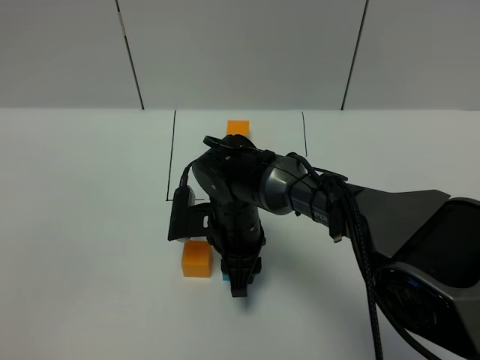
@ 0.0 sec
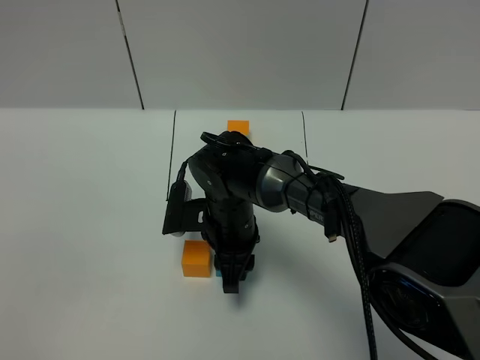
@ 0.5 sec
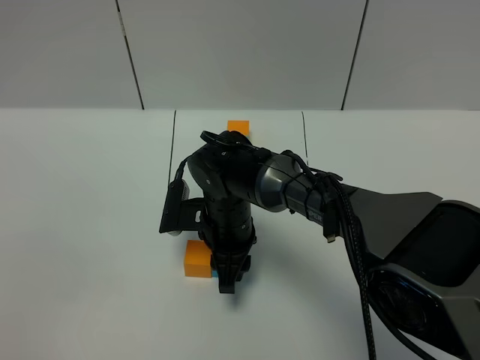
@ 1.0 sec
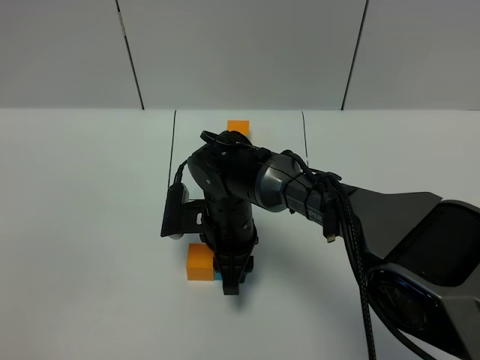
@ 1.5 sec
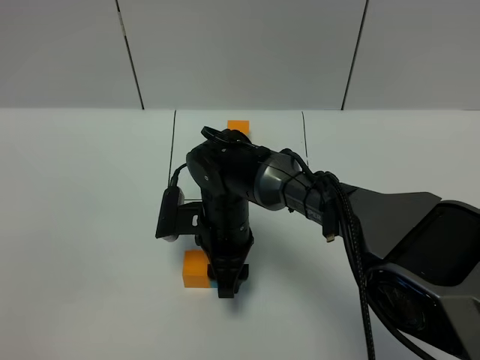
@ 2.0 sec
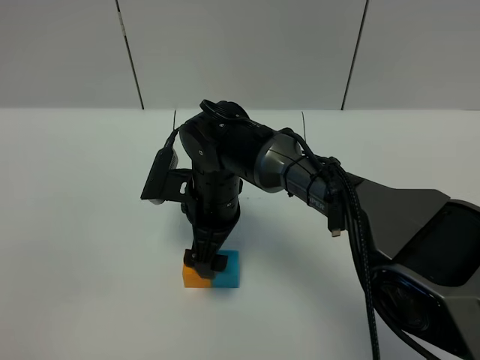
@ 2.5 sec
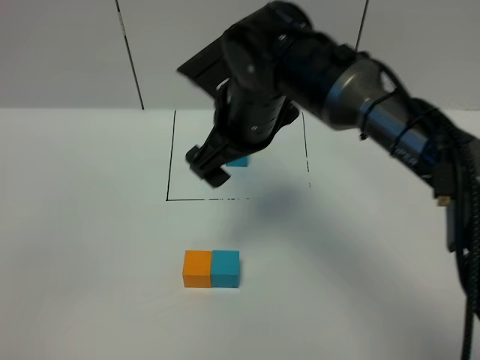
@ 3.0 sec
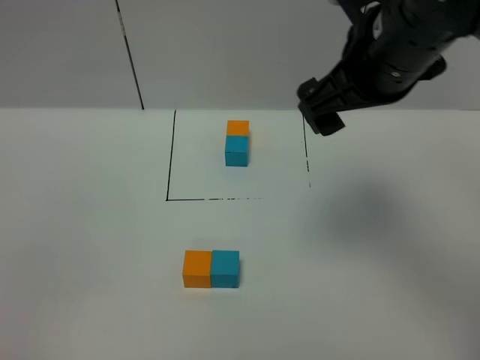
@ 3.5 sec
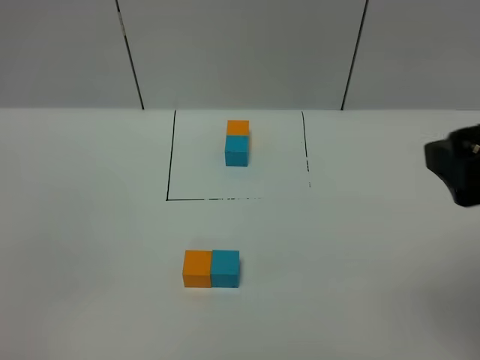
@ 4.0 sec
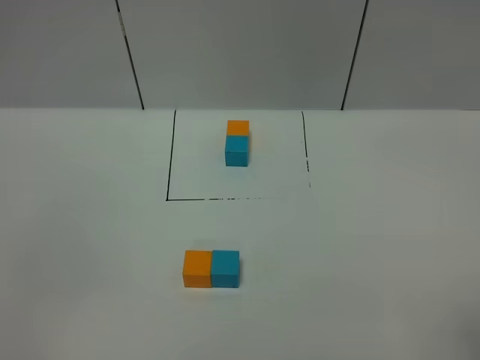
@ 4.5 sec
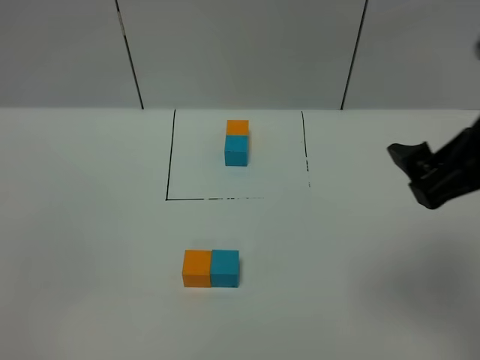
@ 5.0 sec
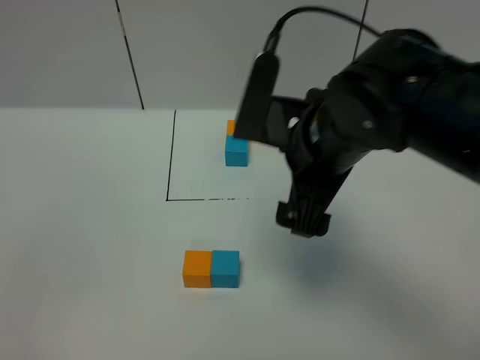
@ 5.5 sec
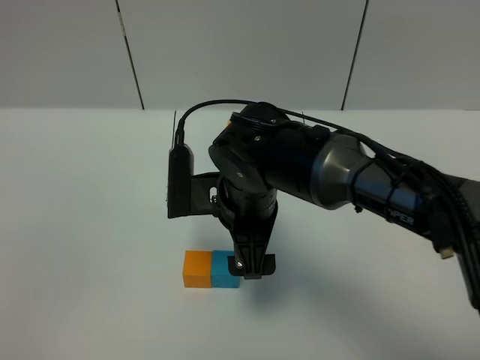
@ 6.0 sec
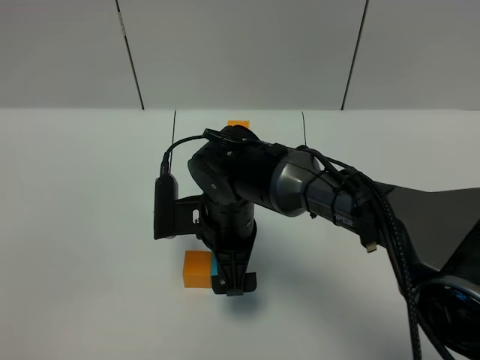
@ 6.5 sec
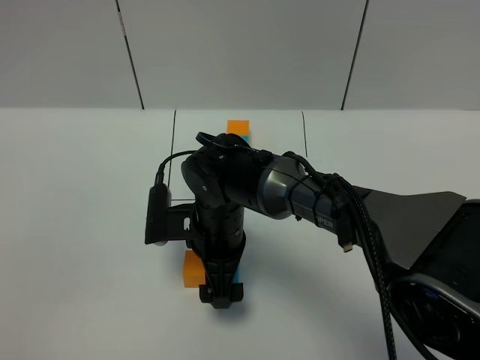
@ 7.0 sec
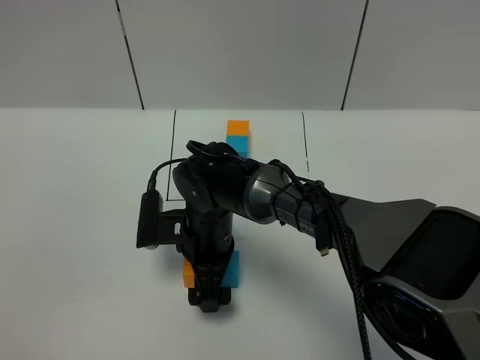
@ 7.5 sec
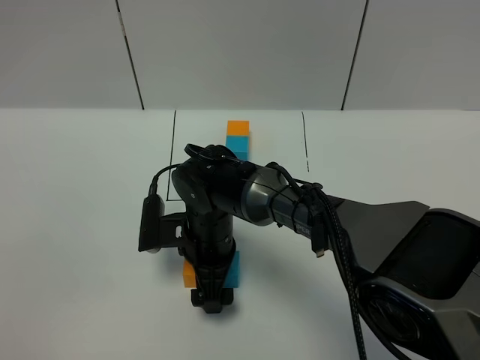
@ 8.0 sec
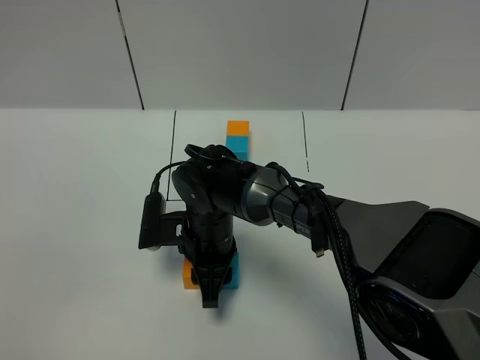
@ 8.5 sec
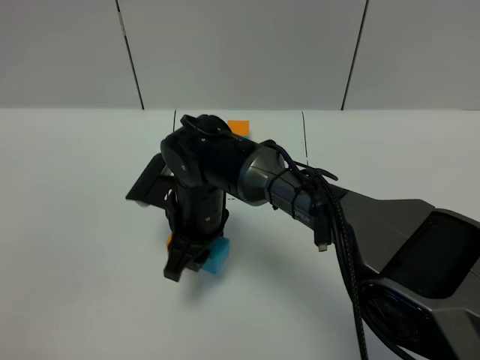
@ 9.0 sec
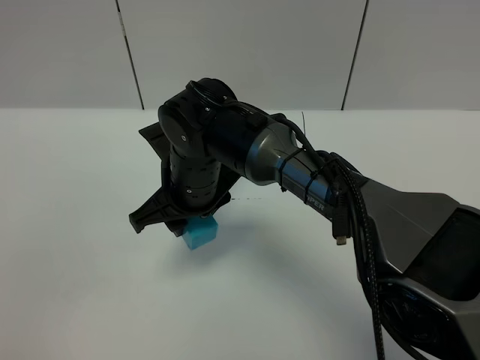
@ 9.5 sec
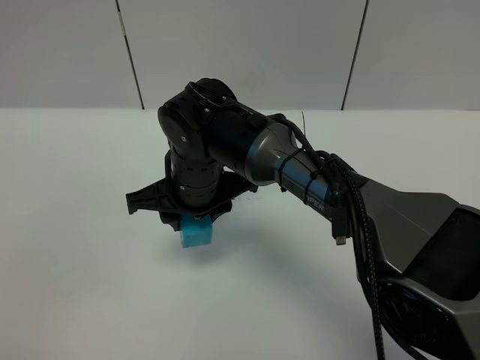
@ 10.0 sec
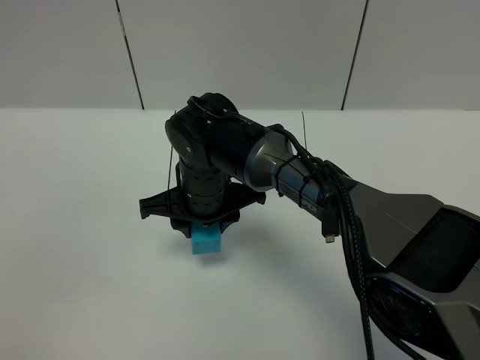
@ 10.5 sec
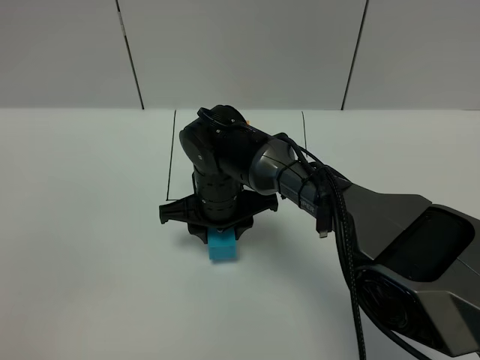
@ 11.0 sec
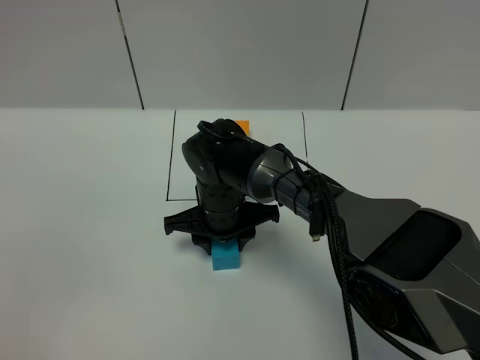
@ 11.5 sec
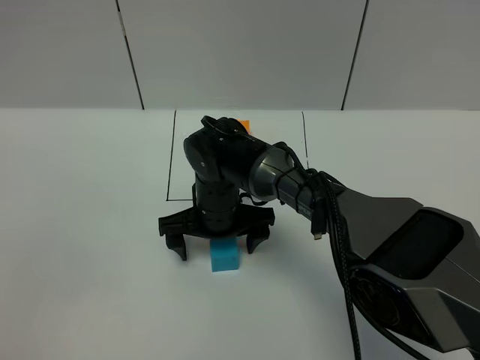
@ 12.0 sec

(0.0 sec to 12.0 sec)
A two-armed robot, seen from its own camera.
Task of the whole recording: According to the building block template in front, assemble the scattered blocks together.
Step, 0.0 sec - 2.0 sec: Put the blue cube on the right of the orange cube.
0.0 sec - 2.0 sec: The grippers make only small movements.
2.0 sec - 4.0 sec: The right gripper heads upward, to the right and backward, covering approximately 40 cm, and opens.
4.0 sec - 6.0 sec: The right gripper travels to the left, downward and forward by approximately 35 cm.
6.0 sec - 8.0 sec: The right gripper is displaced downward by about 10 cm.
8.0 sec - 10.0 sec: The right gripper is displaced upward by approximately 10 cm, and closes its fingers.
10.0 sec - 12.0 sec: The right gripper goes about 10 cm downward, and opens up.

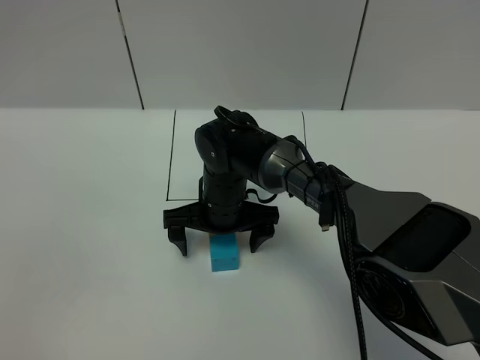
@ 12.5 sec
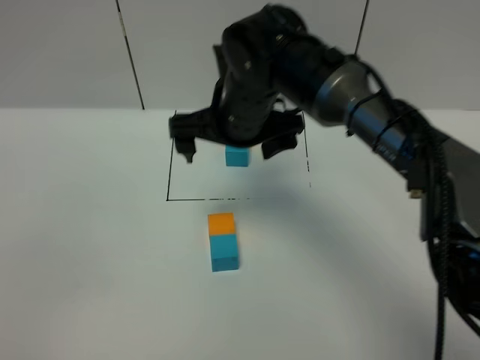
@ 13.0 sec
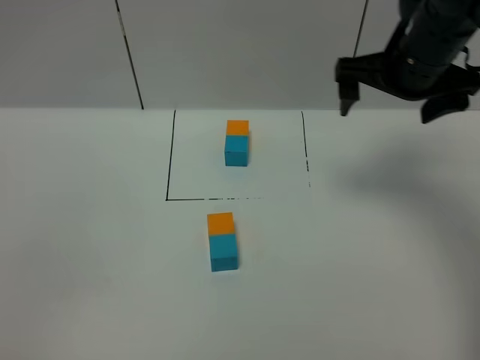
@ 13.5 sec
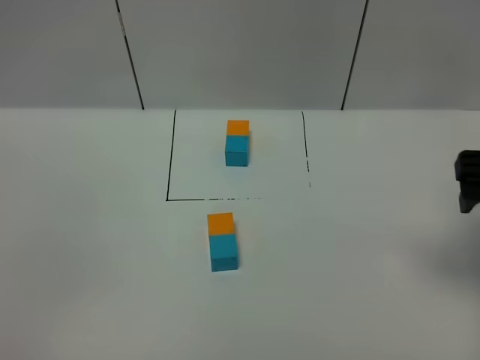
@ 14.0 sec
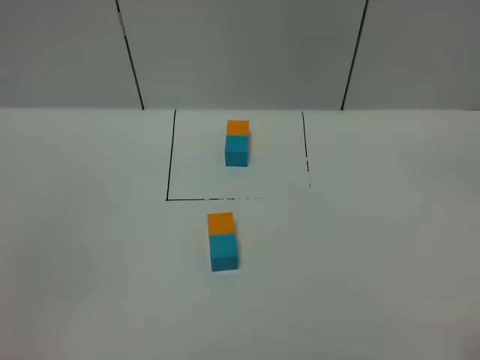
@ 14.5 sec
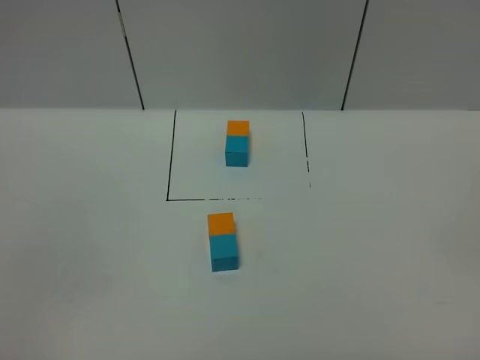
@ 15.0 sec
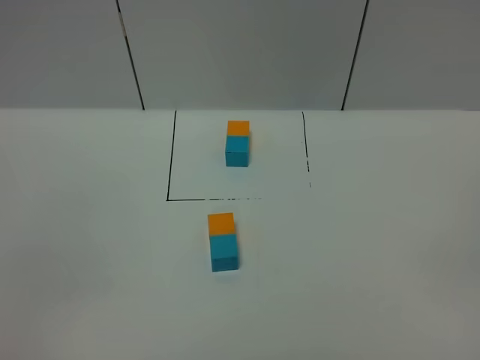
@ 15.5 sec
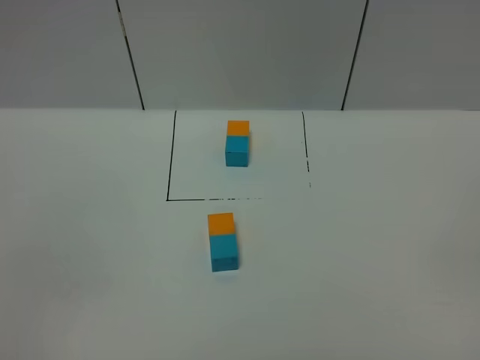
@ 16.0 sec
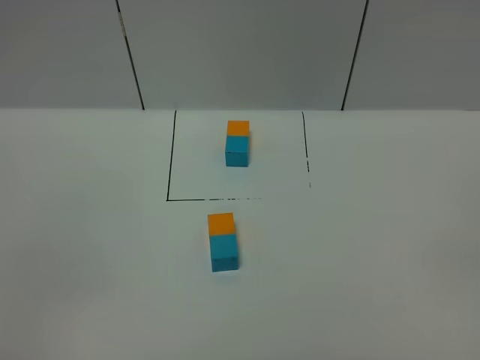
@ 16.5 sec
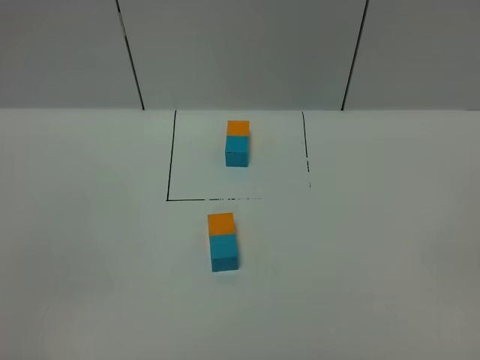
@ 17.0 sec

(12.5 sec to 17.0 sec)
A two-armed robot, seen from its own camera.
Task of the whole recording: According to the building block template in front, assemble the scattered blocks together.
12.5 sec - 14.5 sec: The right gripper heads to the right, backward and upward, covering approximately 50 cm.
